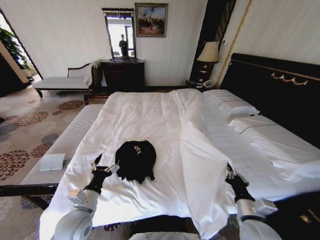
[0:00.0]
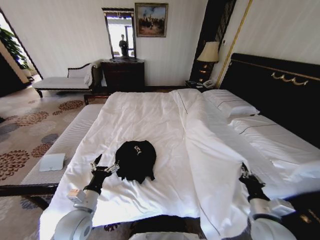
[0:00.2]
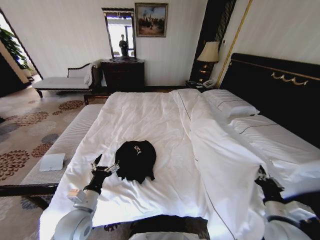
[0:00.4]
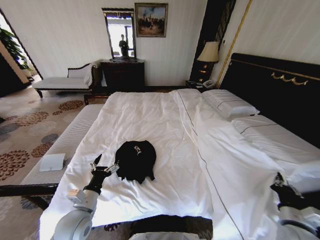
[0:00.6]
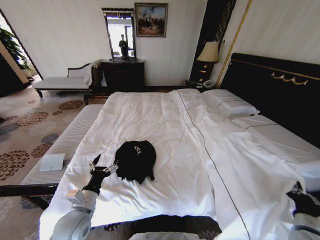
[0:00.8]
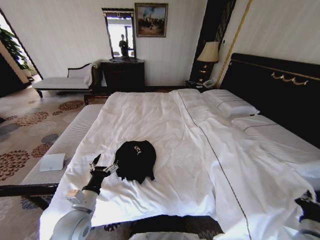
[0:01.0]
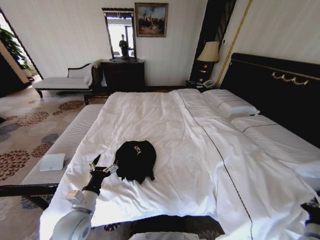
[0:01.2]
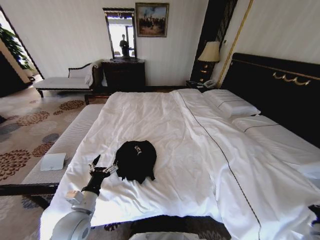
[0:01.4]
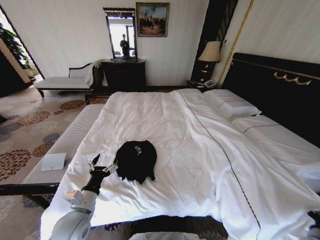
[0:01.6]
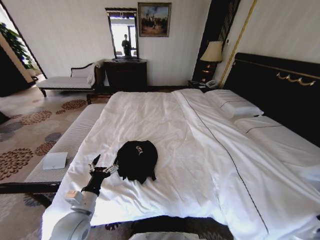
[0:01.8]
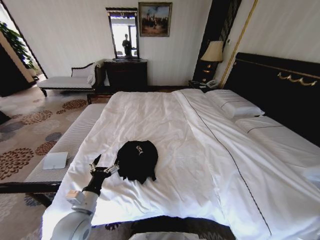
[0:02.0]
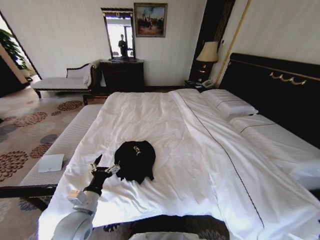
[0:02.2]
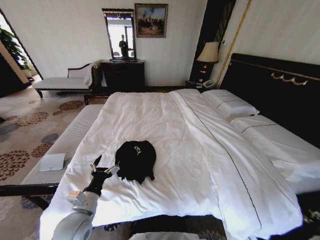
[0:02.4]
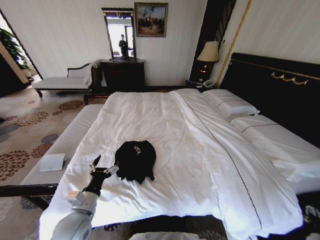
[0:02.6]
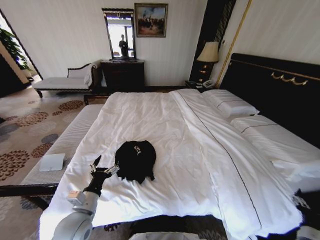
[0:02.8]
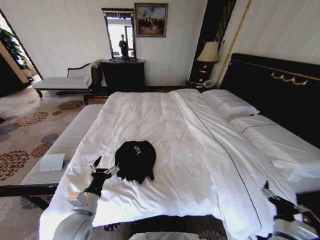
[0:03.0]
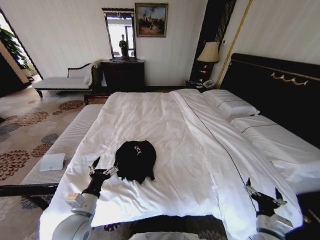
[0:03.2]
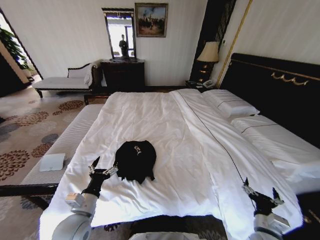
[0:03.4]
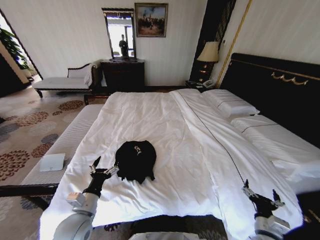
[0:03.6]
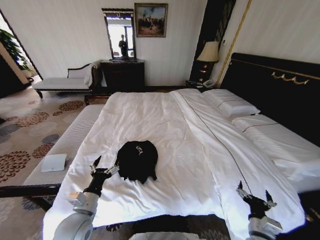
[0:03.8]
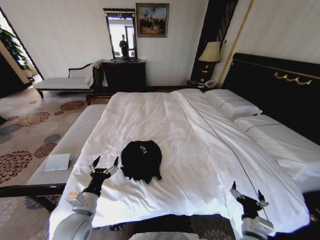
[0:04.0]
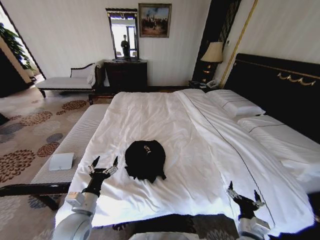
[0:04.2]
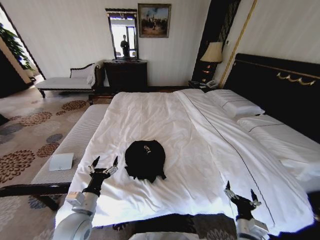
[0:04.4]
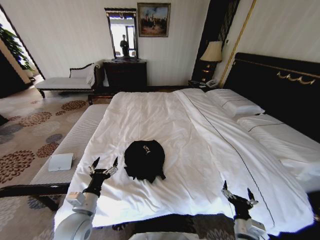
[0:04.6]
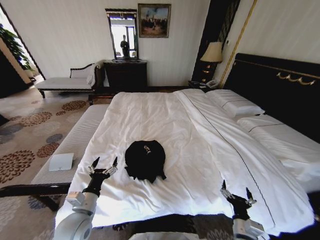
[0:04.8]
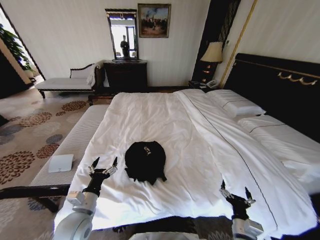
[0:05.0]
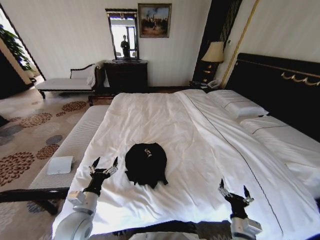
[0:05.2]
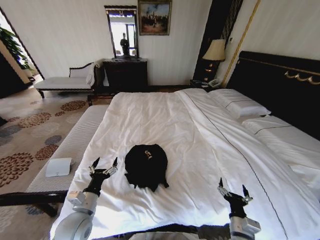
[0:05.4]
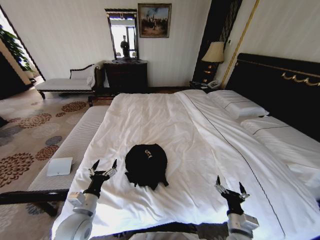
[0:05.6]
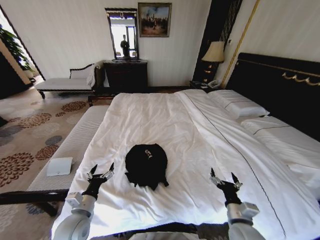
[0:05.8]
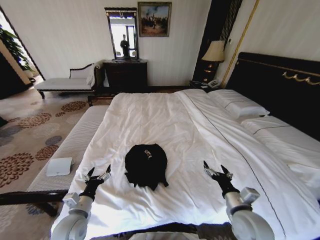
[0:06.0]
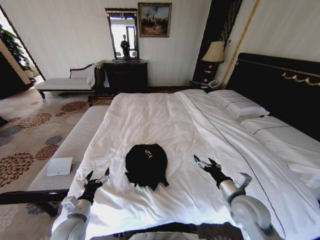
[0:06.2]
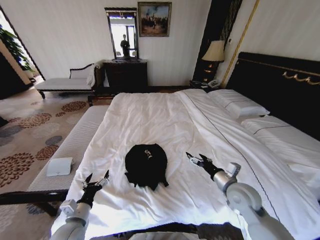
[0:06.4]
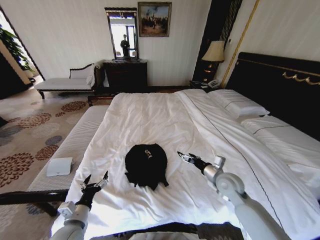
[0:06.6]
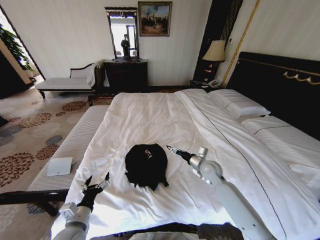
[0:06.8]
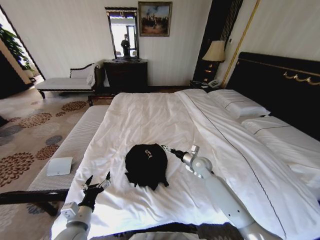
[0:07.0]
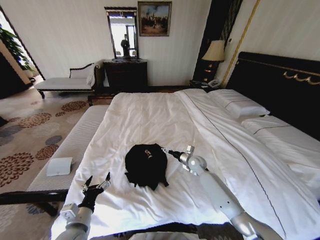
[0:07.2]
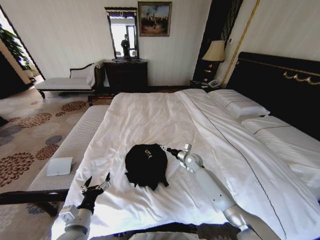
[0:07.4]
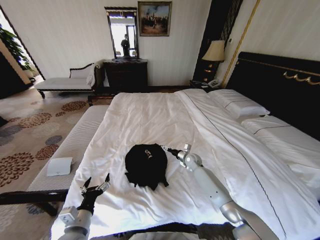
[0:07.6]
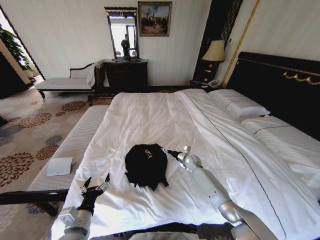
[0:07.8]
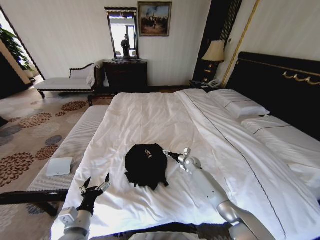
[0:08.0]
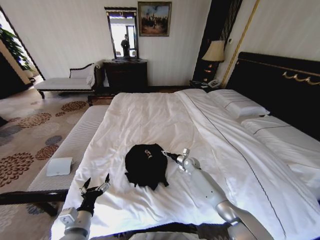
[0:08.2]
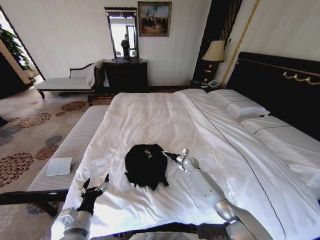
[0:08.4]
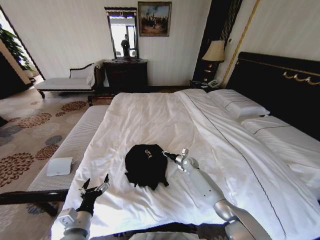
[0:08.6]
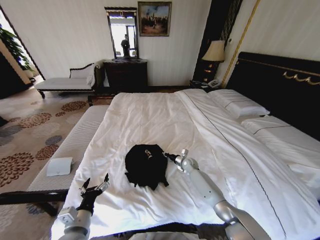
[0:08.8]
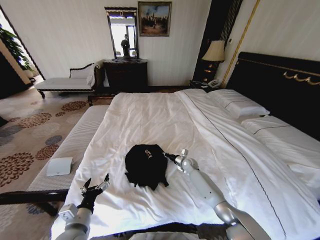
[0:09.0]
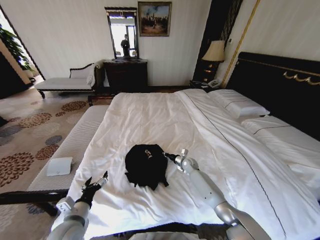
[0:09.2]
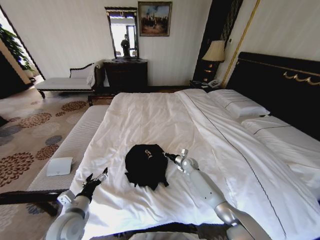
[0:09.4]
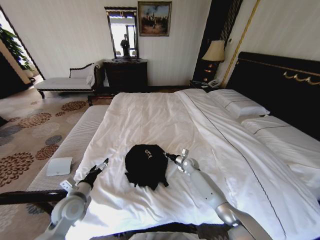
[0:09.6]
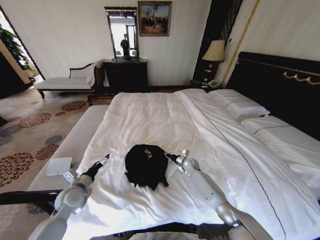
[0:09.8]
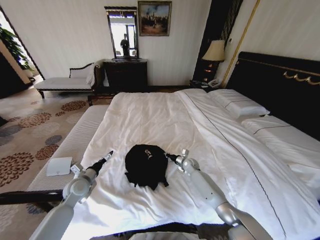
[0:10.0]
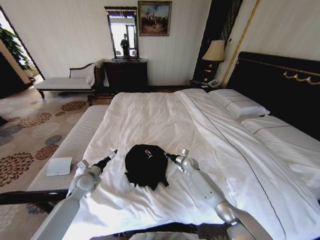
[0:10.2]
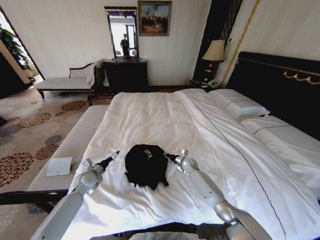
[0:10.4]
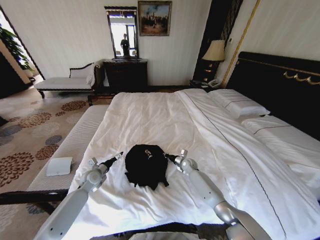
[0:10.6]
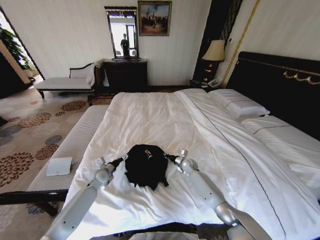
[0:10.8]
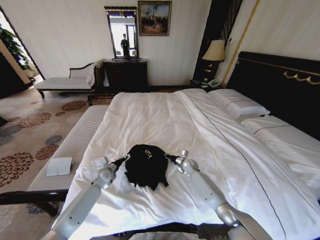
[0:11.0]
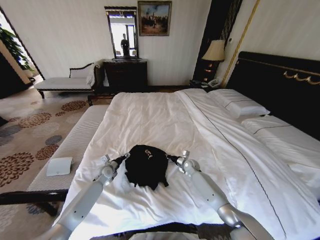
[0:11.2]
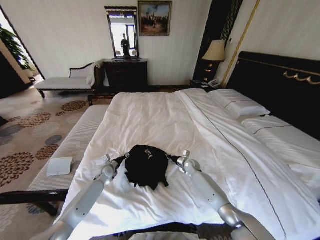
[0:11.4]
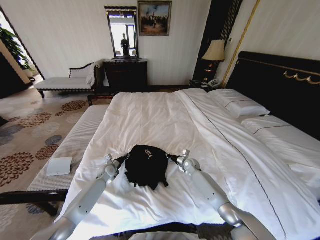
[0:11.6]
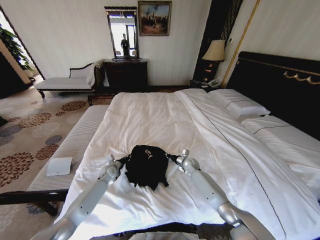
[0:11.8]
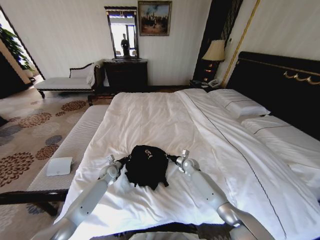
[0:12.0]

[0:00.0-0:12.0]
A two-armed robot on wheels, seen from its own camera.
Task of the whole recording: Fold the clothes on the bed.
0:00.0 to 0:01.6: The right gripper goes roughly 25 cm to the right.
0:01.6 to 0:03.0: The right gripper goes some 15 cm to the left, and opens up.
0:03.0 to 0:04.4: The right gripper heads to the left, covering approximately 10 cm.
0:04.4 to 0:06.0: The left gripper changes place by about 5 cm. The right gripper heads upward and forward, covering approximately 10 cm.
0:06.0 to 0:07.6: The left gripper travels backward by some 5 cm. Meanwhile the right gripper travels forward by approximately 30 cm.
0:07.6 to 0:09.0: The right gripper is displaced downward by about 5 cm, and closes up.
0:09.0 to 0:10.4: The left gripper is displaced forward by approximately 25 cm.
0:10.4 to 0:12.0: The left gripper shifts roughly 10 cm forward, to the right and downward, and closes up.

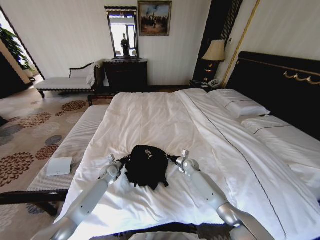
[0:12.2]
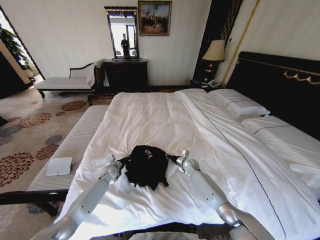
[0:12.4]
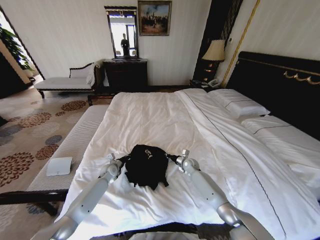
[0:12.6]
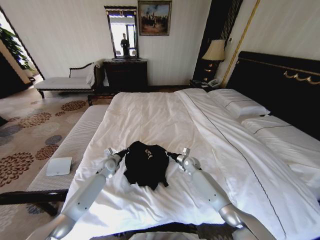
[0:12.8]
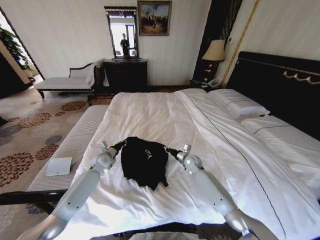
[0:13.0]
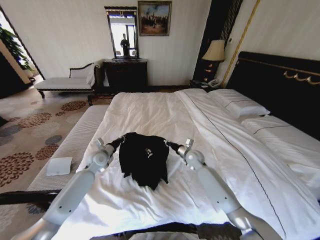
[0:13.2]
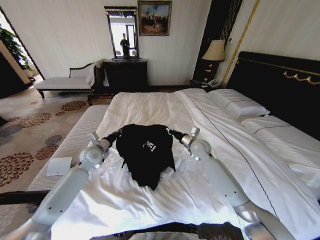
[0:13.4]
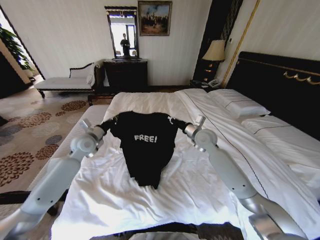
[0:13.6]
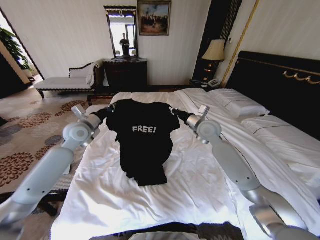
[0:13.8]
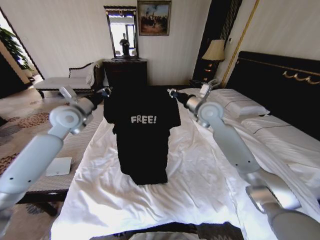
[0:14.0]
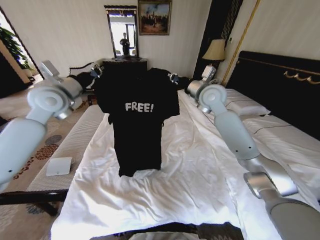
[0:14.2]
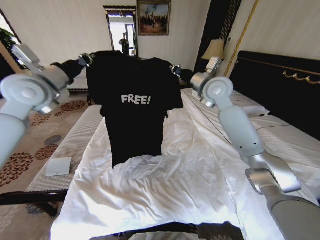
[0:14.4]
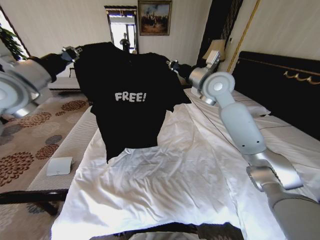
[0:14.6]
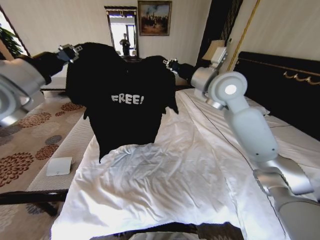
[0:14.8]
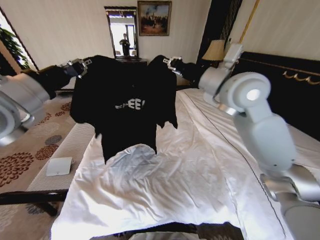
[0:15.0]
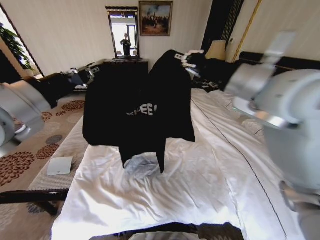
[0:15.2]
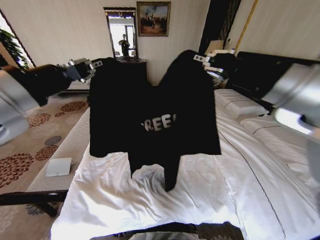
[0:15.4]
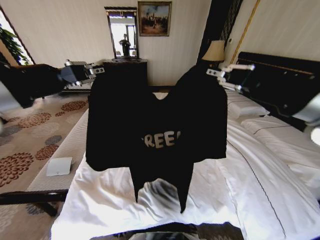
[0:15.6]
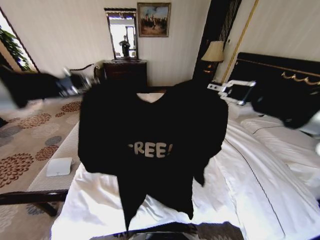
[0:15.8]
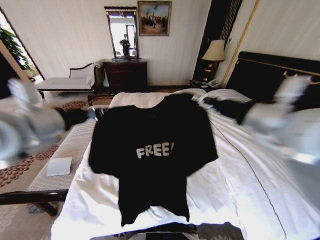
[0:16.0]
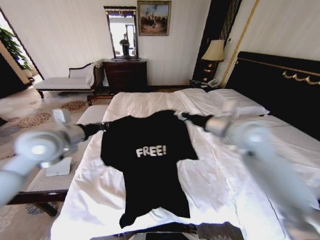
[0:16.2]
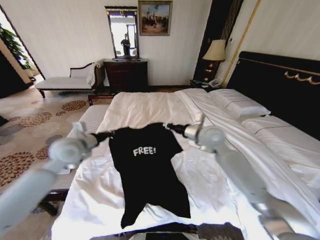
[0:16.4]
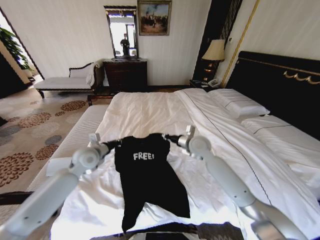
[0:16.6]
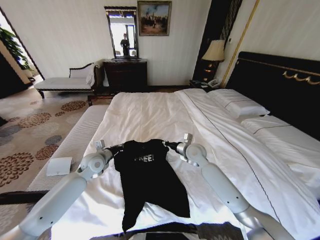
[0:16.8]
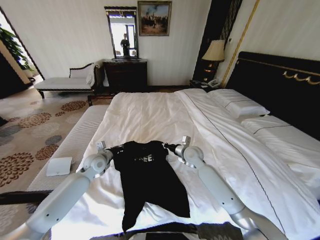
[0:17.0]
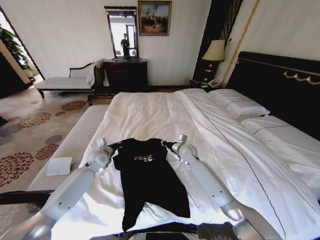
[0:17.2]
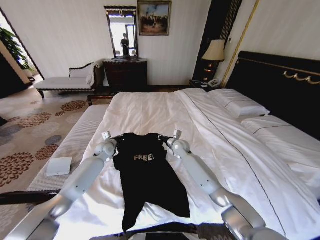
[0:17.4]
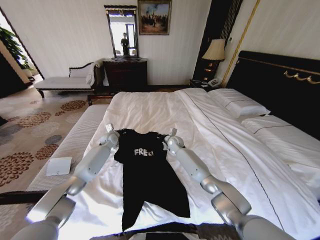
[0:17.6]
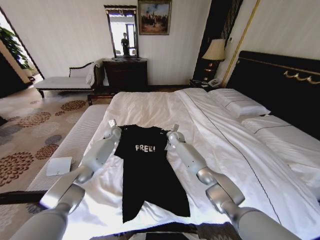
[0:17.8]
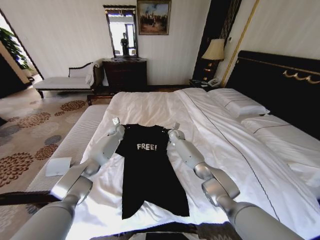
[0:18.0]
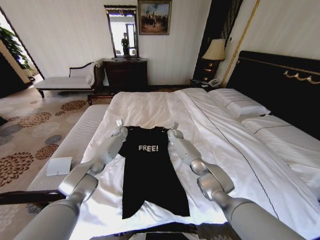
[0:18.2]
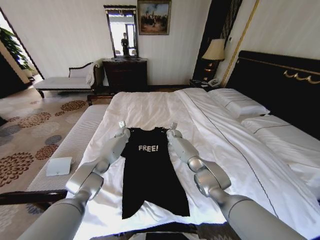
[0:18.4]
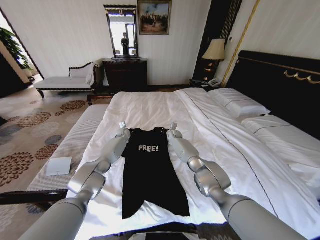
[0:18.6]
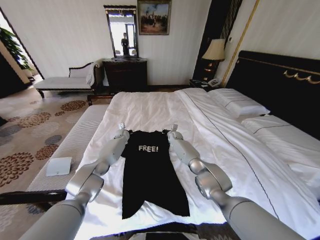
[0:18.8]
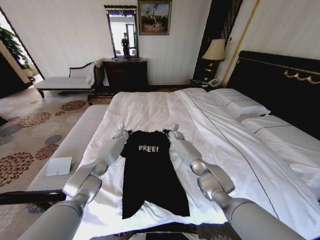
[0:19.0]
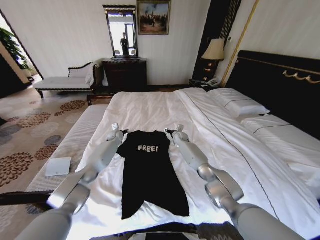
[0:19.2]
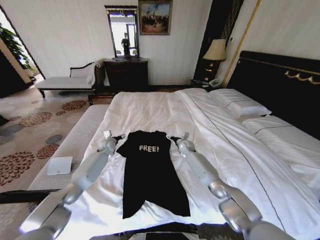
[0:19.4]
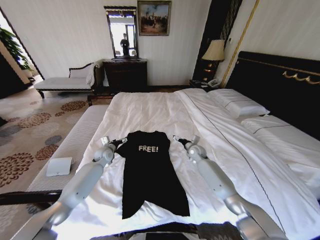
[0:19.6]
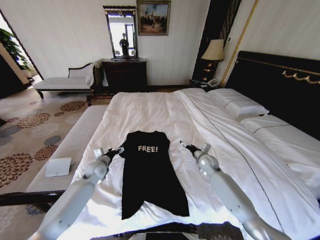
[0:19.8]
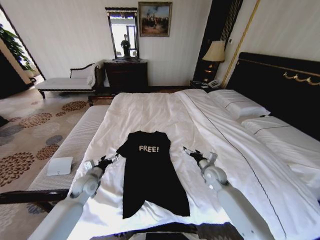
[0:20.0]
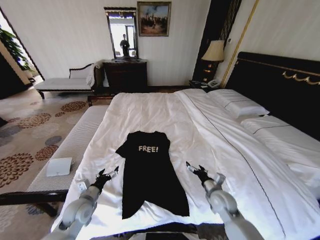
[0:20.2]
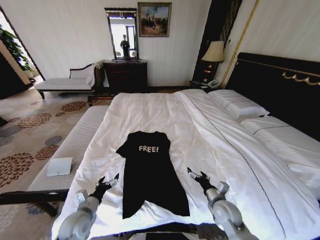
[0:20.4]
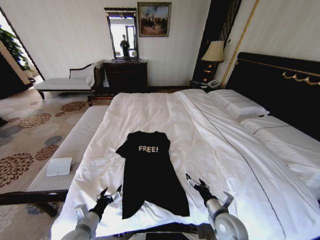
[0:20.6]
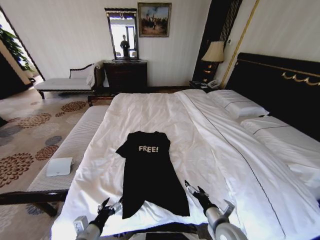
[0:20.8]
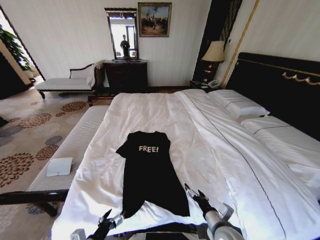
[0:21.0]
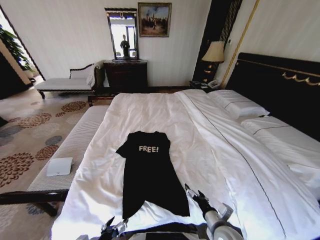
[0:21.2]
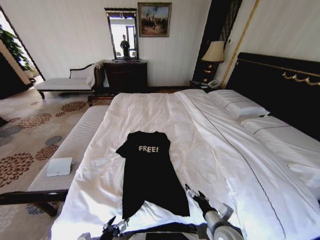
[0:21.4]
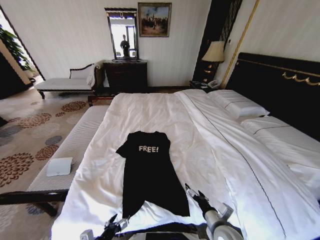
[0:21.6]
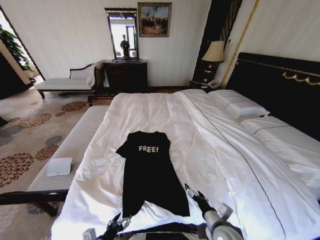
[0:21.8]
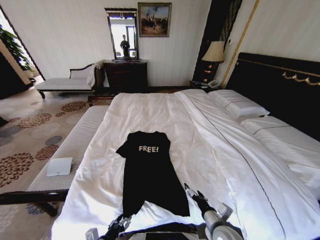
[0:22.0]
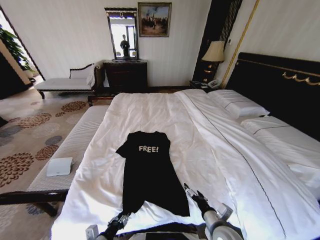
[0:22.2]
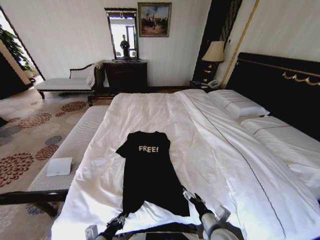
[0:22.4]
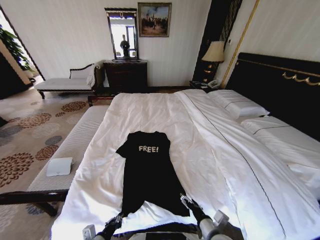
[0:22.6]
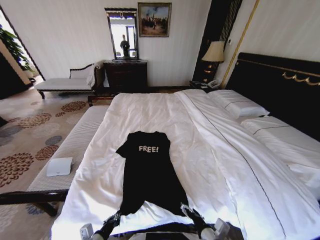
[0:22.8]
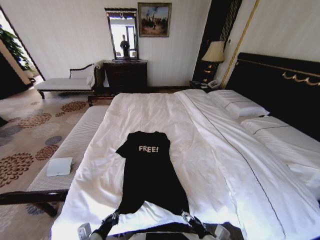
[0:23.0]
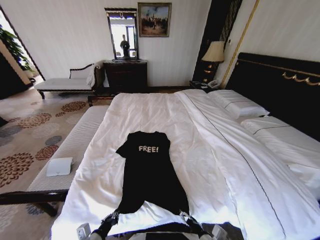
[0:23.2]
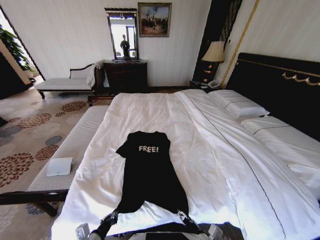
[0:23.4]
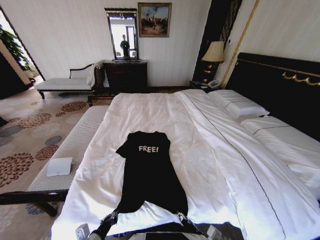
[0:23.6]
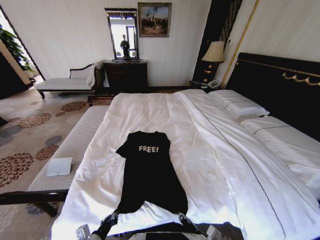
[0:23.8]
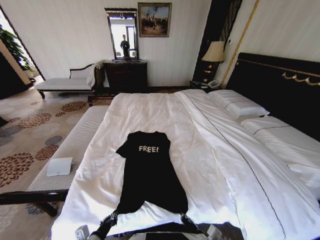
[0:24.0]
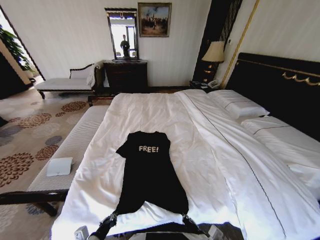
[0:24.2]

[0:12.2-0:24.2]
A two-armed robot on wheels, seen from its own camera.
Task of the whole recording: Fold the clothes on the bed.
0:12.2 to 0:13.8: Both grippers move upward, roughly 30 cm.
0:13.8 to 0:15.2: The left gripper goes approximately 25 cm backward and upward; the right gripper shifts about 25 cm upward and backward.
0:15.2 to 0:16.6: The two grippers go approximately 30 cm downward and forward.
0:16.6 to 0:18.2: The left gripper travels forward by roughly 25 cm. The right gripper goes roughly 25 cm forward and downward.
0:18.2 to 0:19.8: The right gripper moves backward and to the right, about 25 cm, and opens. The left gripper moves backward, roughly 25 cm, and opens its fingers.
0:19.8 to 0:21.2: Both grippers travel together backward, approximately 30 cm.
0:21.2 to 0:22.6: The left gripper closes its fingers.
0:22.6 to 0:24.2: The right gripper ends up about 5 cm from where it was, and closes its fingers.
